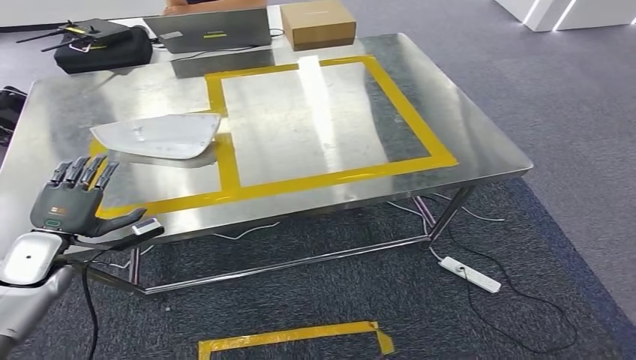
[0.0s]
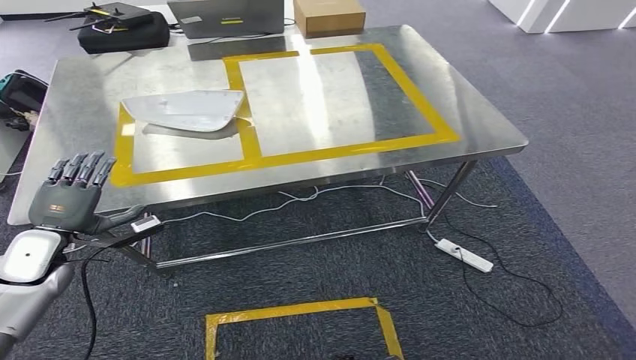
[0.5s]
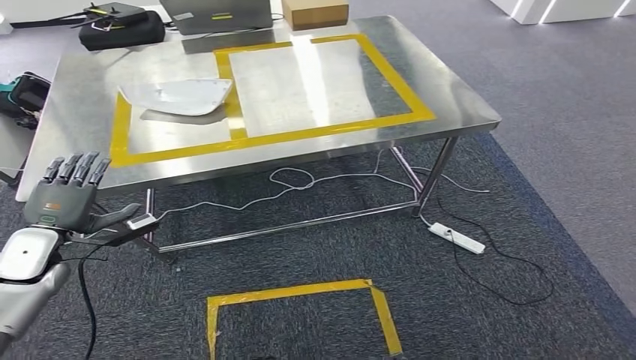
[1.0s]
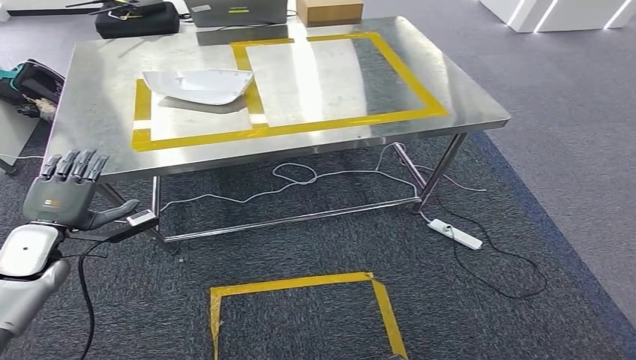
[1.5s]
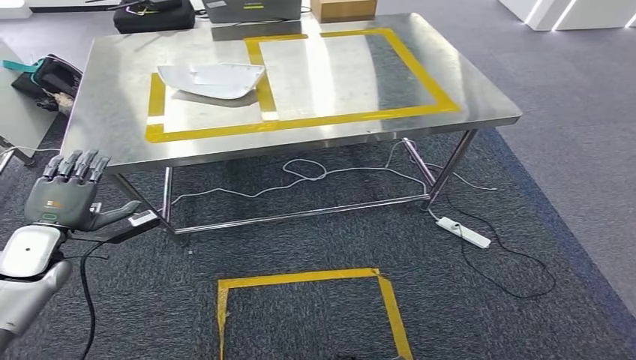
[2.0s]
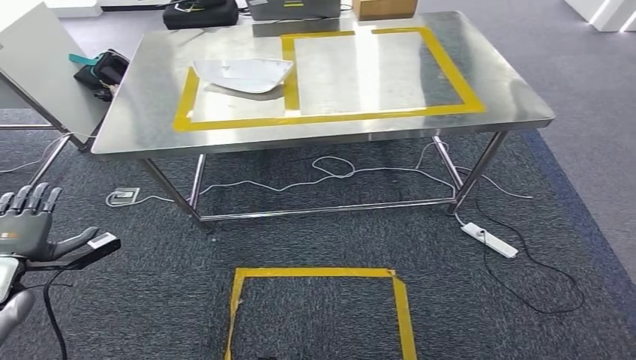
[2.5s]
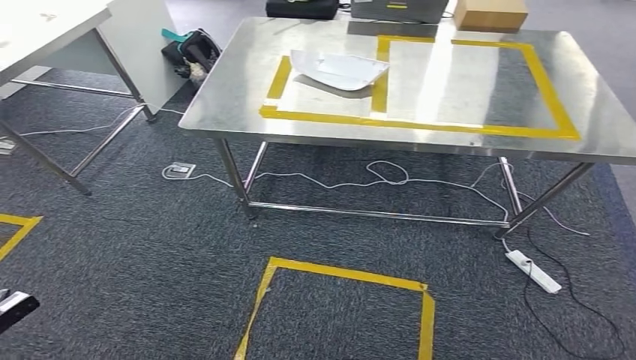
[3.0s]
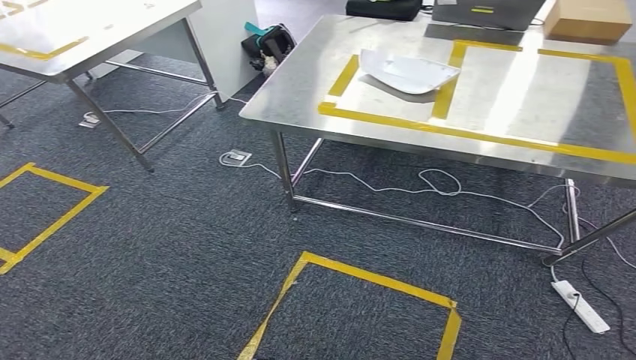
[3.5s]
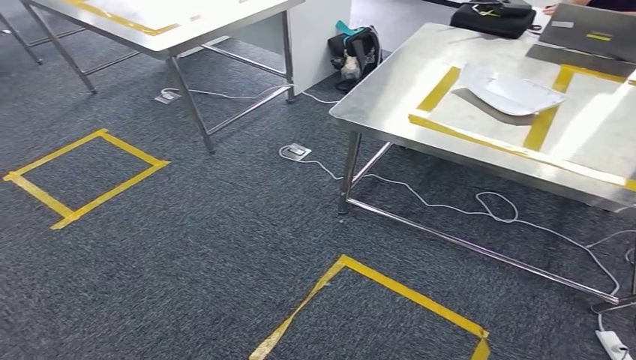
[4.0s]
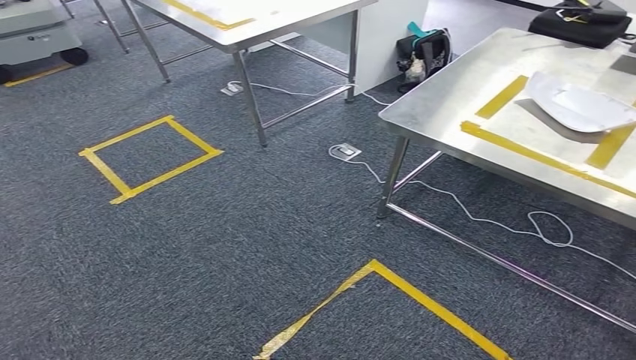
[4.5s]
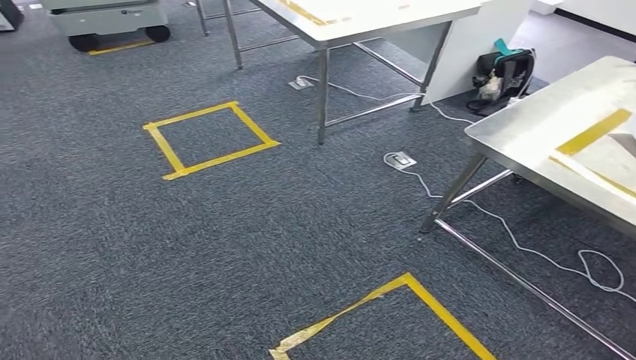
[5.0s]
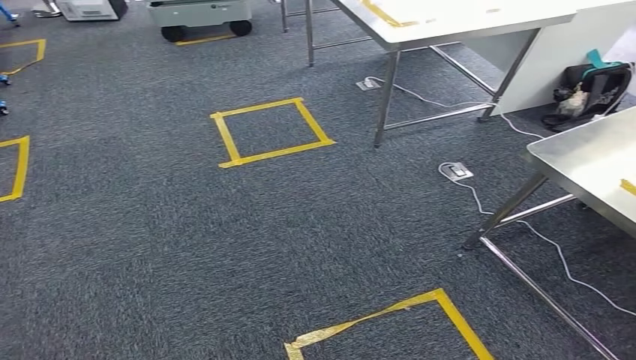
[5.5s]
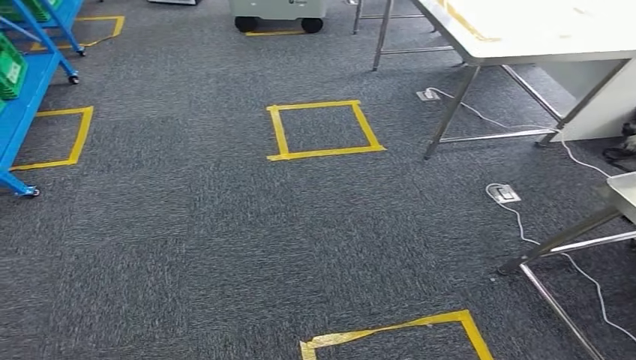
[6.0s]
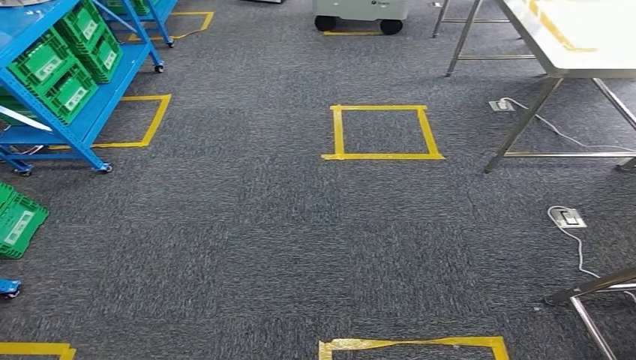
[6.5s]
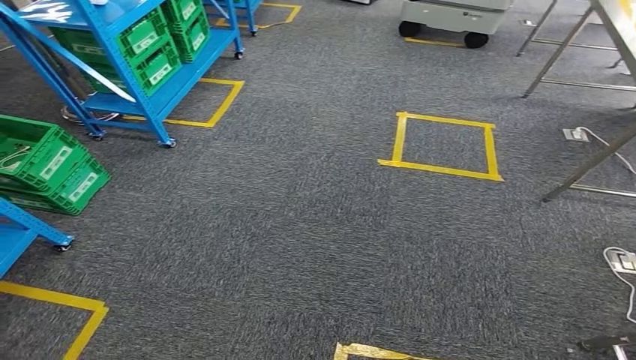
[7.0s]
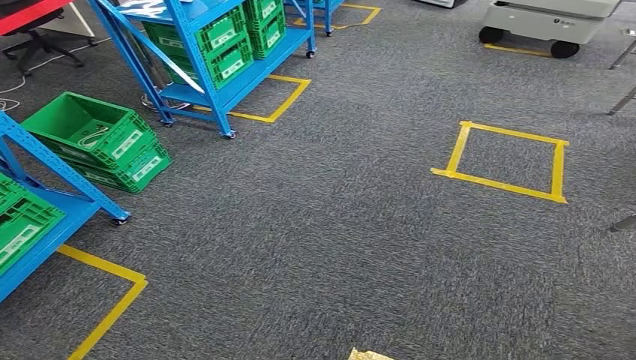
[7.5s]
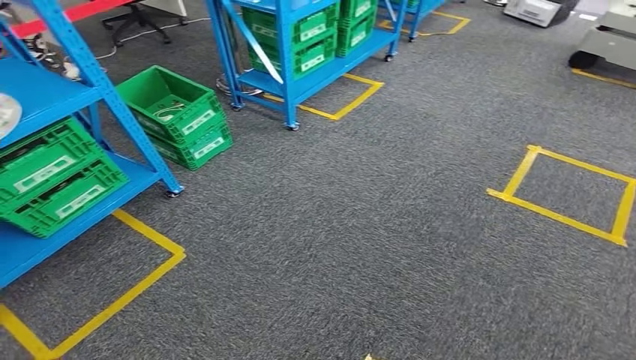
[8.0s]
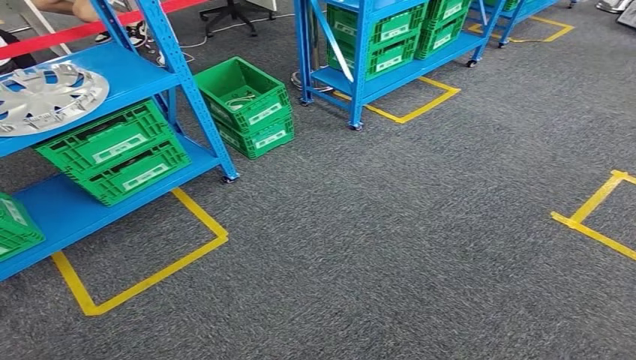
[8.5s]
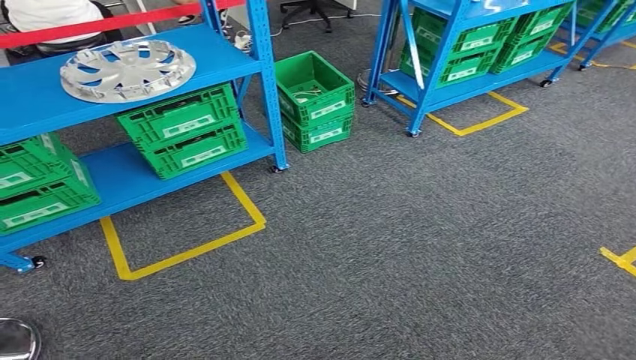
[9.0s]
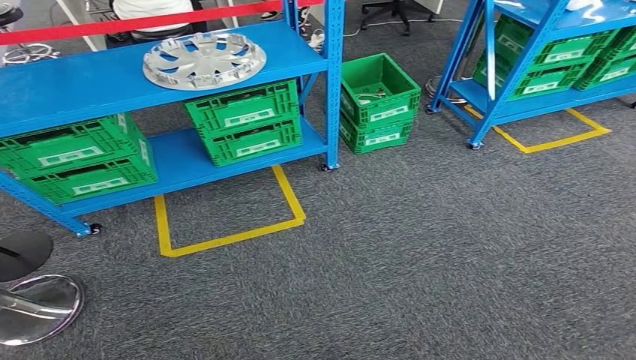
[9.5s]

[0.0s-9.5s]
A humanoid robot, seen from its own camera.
Step, 0.5s to 9.5s: Return to the initial position at the workbench.
